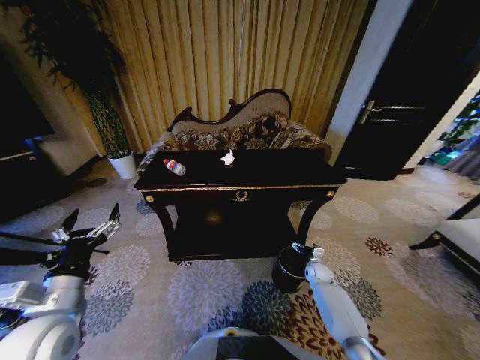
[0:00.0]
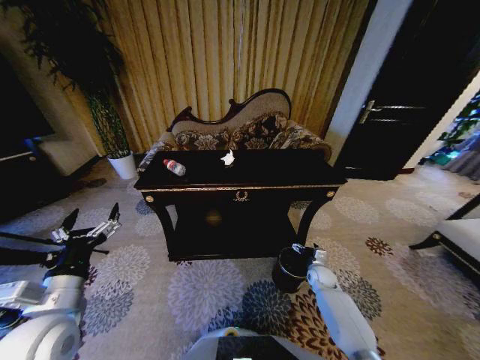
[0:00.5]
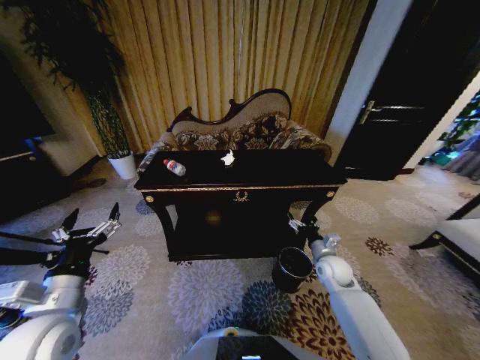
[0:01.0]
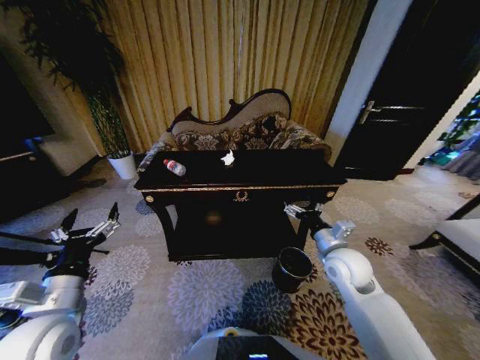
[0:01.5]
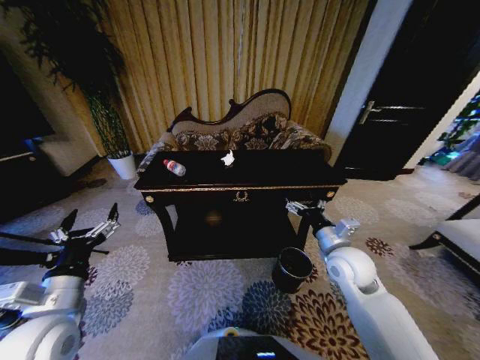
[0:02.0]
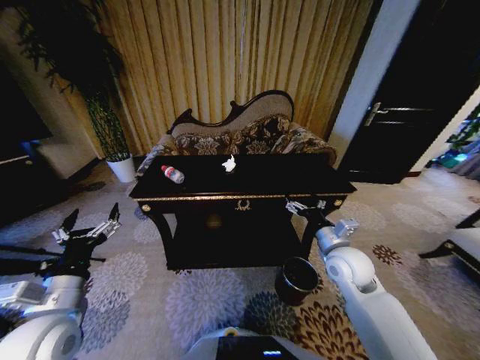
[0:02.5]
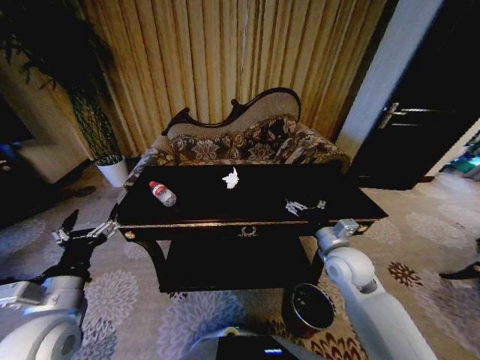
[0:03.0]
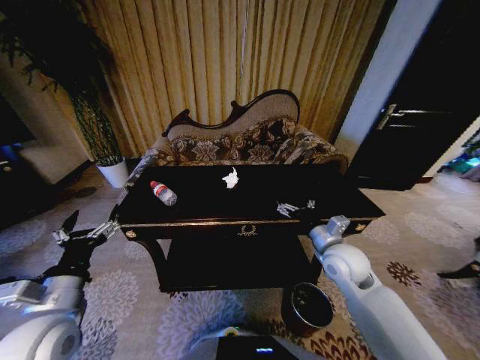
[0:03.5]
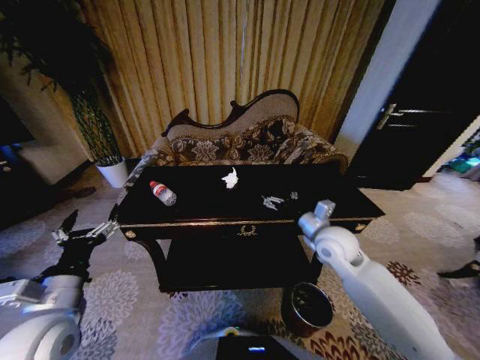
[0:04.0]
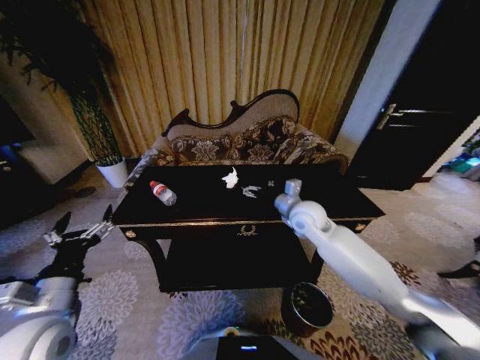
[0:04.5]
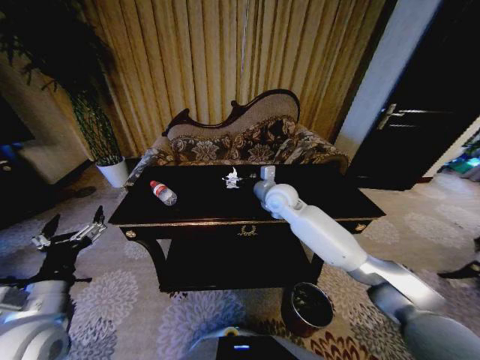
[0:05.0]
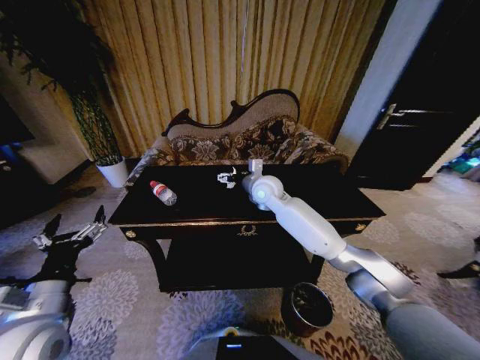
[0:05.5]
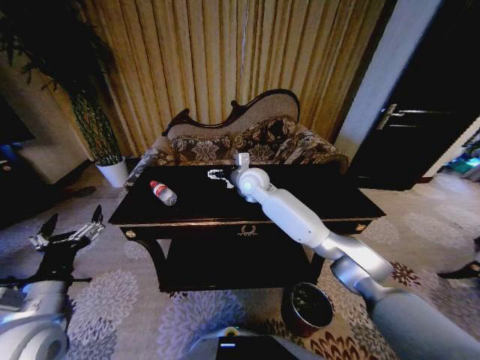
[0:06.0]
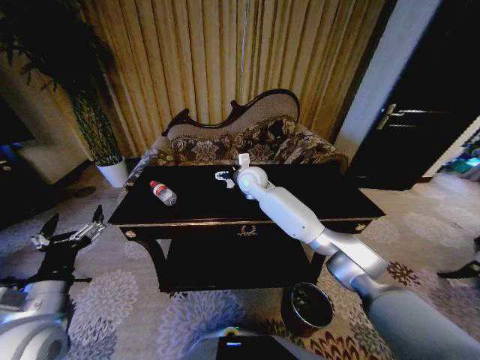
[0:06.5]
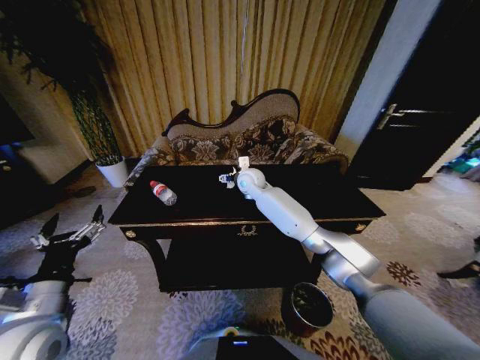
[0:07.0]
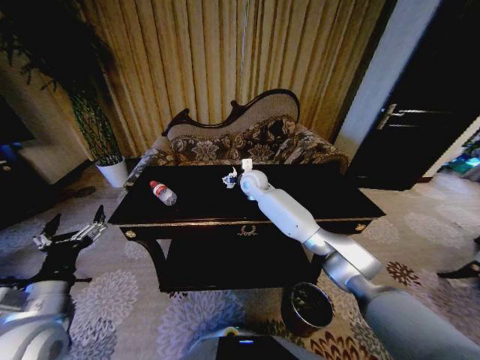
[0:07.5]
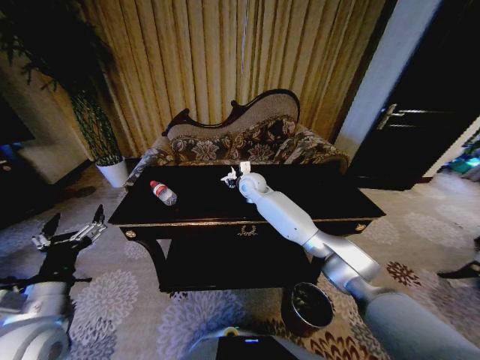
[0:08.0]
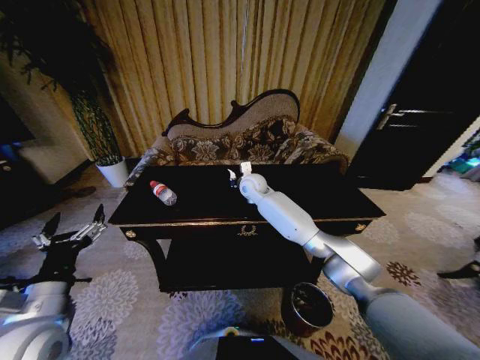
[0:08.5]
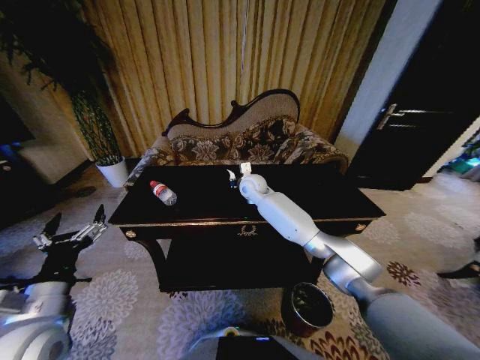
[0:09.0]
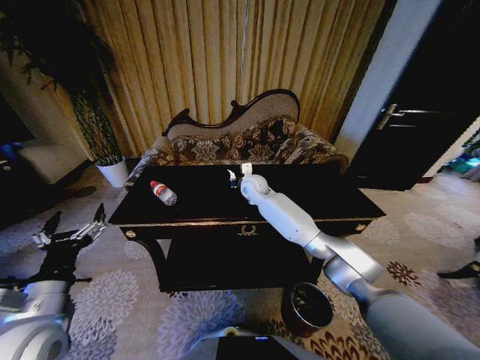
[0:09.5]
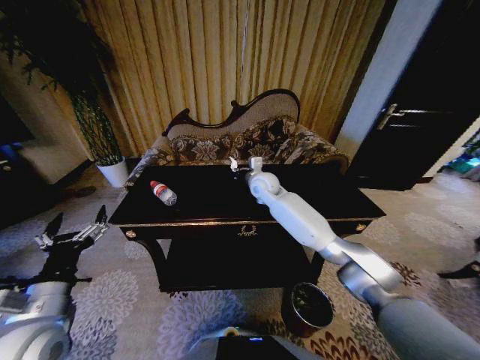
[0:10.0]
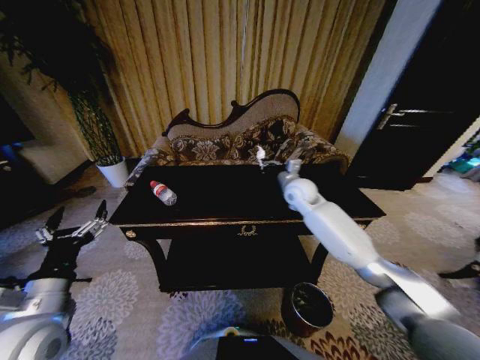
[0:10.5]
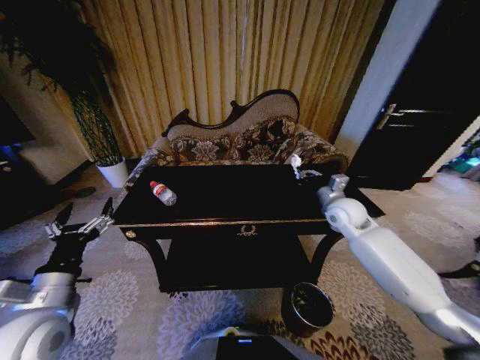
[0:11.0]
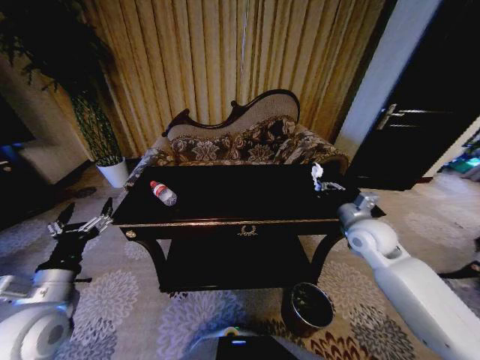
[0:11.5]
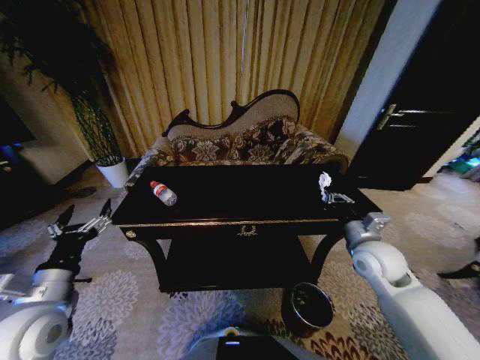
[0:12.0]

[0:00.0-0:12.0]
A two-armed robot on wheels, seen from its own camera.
Task of the whole recording: Move to the front of the table and place the trash on the table into the trash bin.
0:00.0 to 0:02.0: The right gripper heads upward, covering approximately 30 cm.
0:02.0 to 0:04.0: The right gripper travels forward by about 5 cm.
0:04.0 to 0:06.0: The right gripper shifts some 25 cm to the left and forward.
0:06.0 to 0:08.0: The right gripper heads downward, covering about 5 cm, and closes up.
0:08.0 to 0:10.0: The right gripper closes its fingers.
0:10.0 to 0:12.0: The right gripper heads backward and to the right, covering approximately 35 cm.

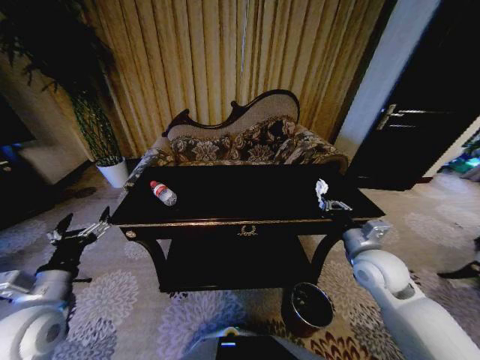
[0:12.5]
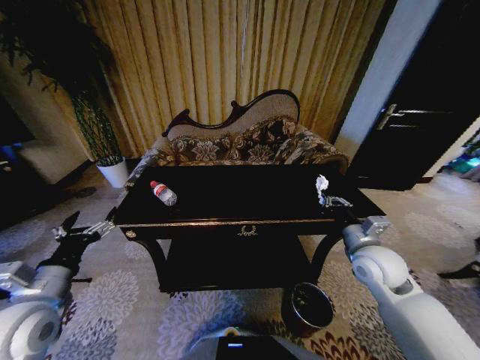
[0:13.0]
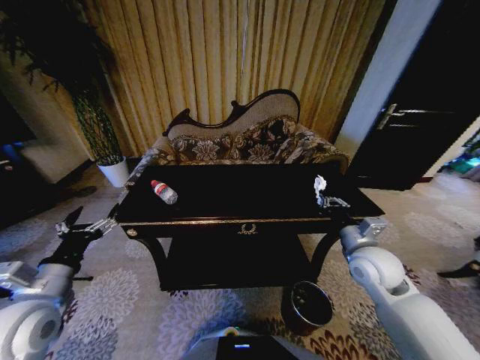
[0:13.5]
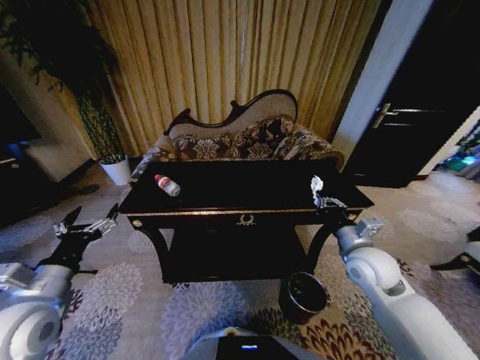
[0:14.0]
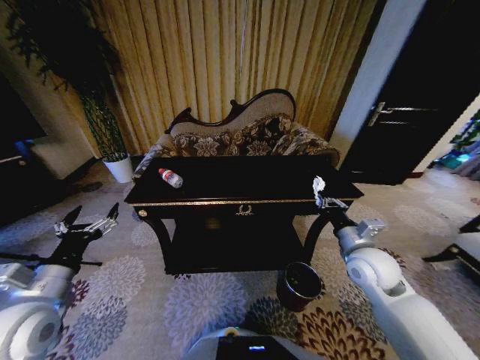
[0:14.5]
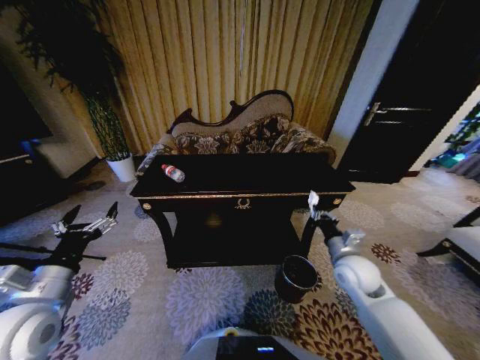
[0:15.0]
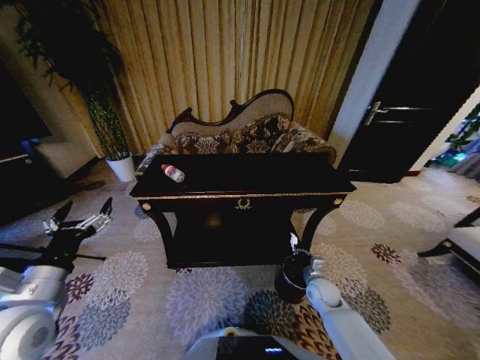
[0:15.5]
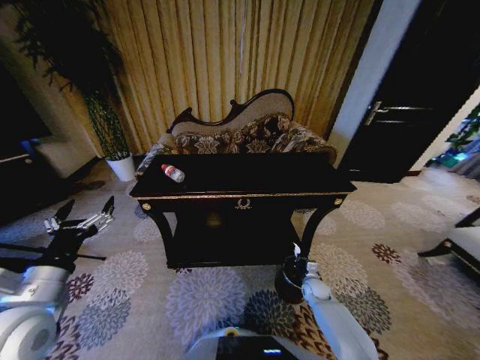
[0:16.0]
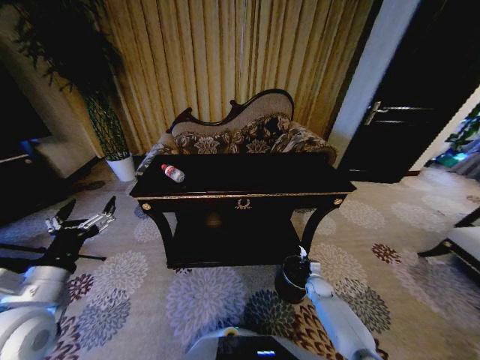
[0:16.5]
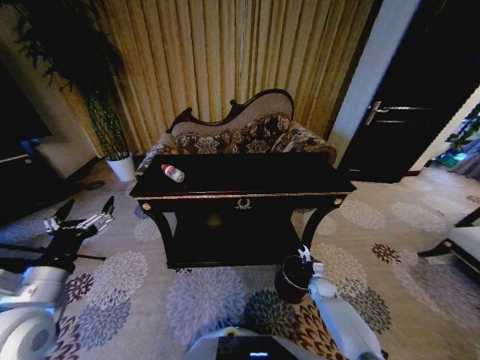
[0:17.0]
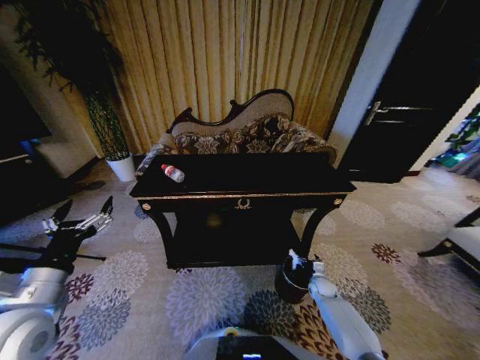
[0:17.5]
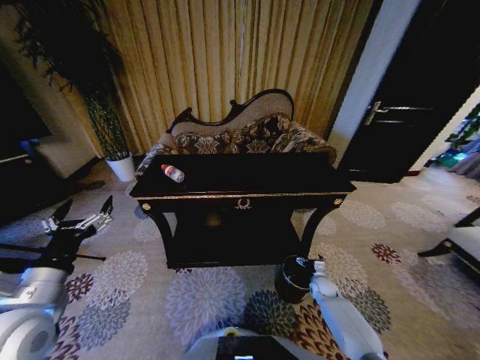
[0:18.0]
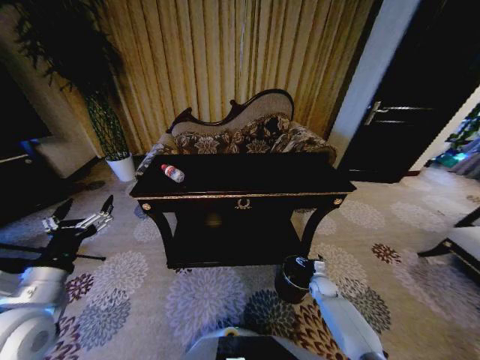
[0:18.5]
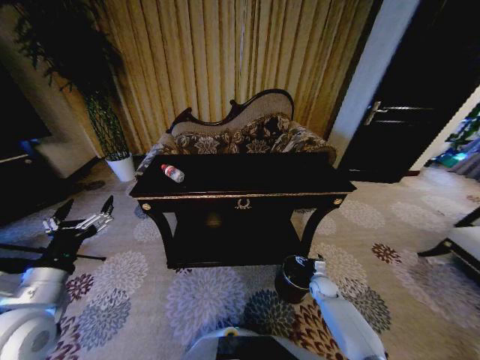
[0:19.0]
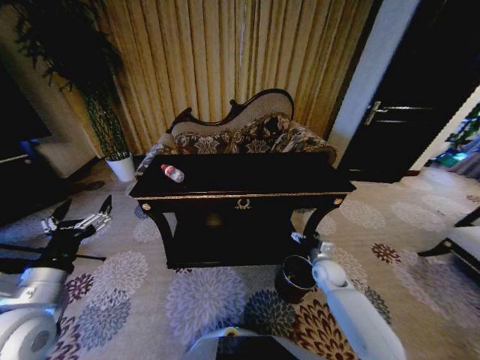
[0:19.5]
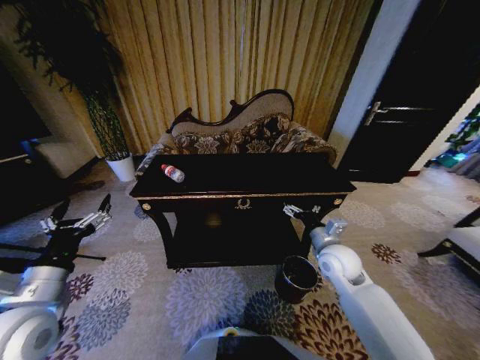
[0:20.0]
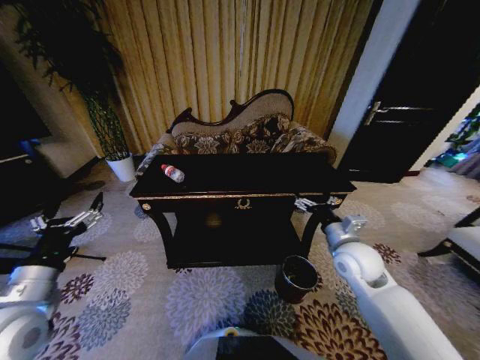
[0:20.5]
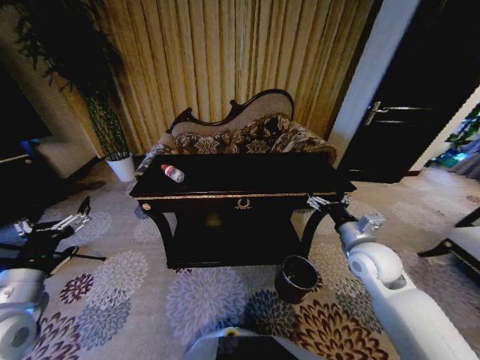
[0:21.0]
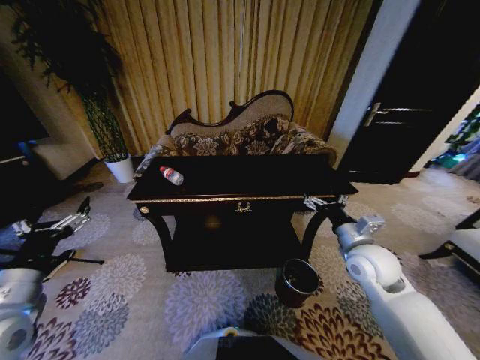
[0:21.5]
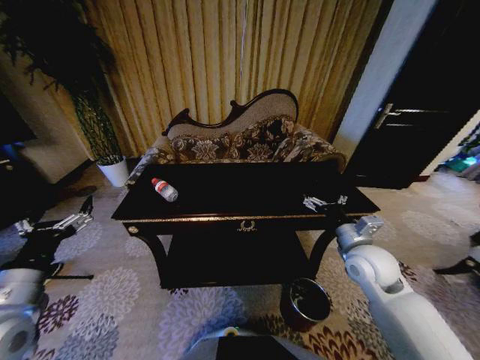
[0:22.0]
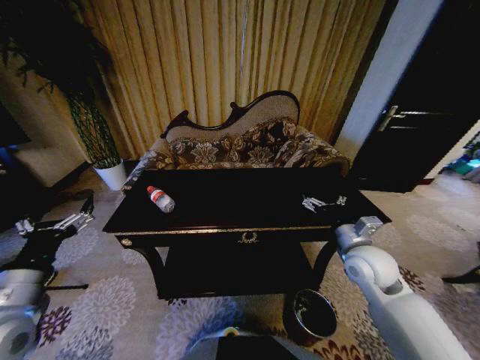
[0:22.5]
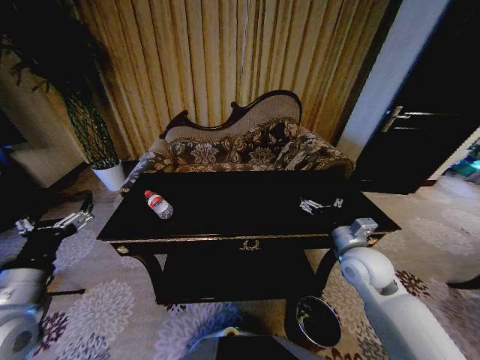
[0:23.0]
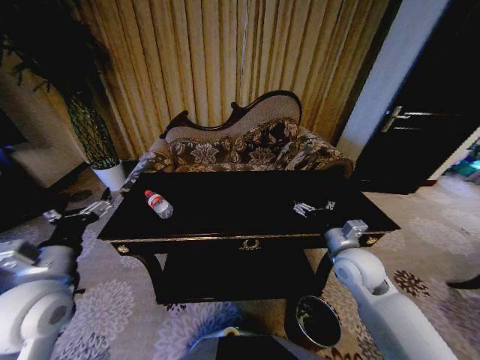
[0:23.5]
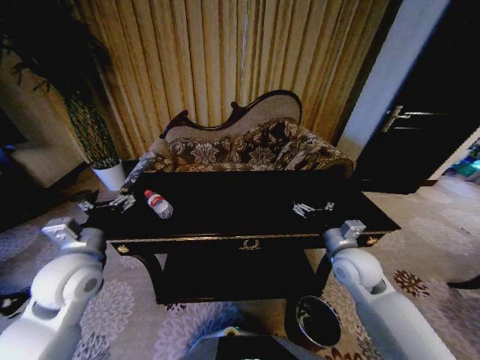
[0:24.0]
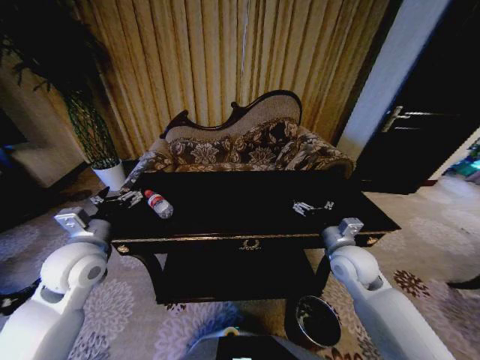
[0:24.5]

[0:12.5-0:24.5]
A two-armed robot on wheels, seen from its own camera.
Task of the whole recording: Move to the front of the table and place the trash on the table into the trash bin.
0:14.5 to 0:16.5: The right gripper travels downward by approximately 35 cm.
0:16.5 to 0:18.5: The right gripper opens its fingers.
0:18.5 to 0:20.5: The right gripper is displaced upward by roughly 35 cm.
0:22.5 to 0:24.5: The left gripper travels forward and to the right by roughly 15 cm.

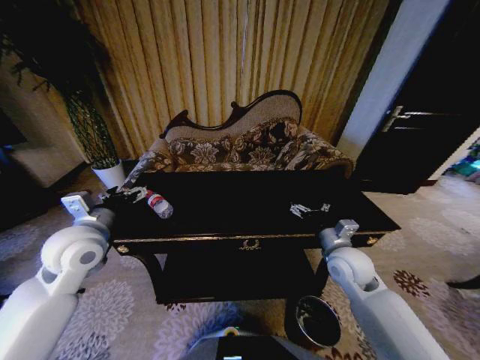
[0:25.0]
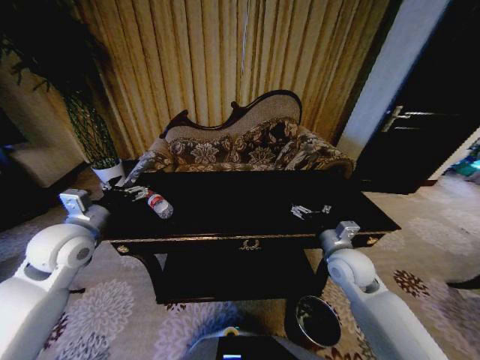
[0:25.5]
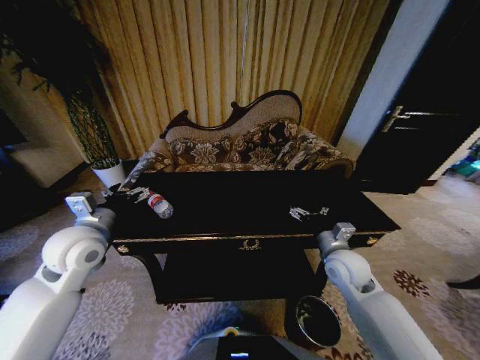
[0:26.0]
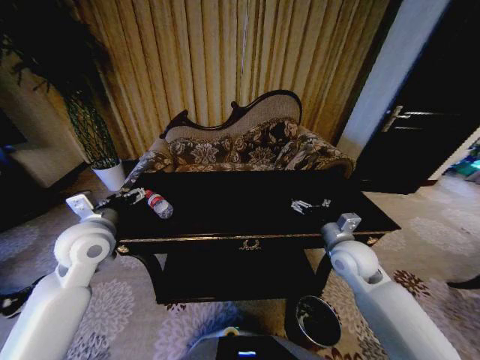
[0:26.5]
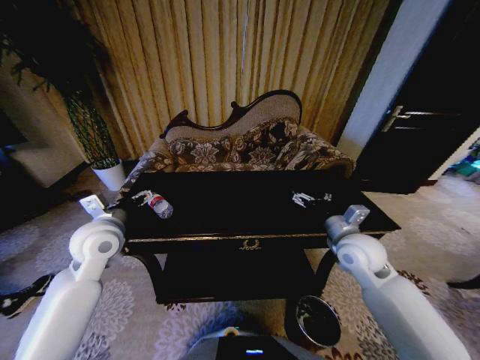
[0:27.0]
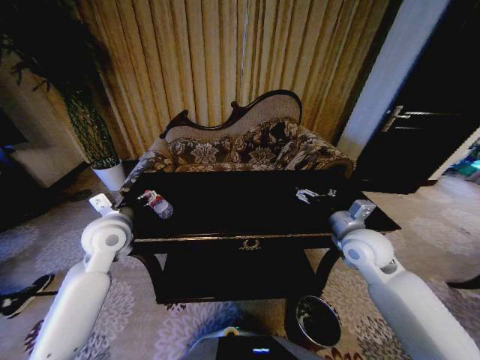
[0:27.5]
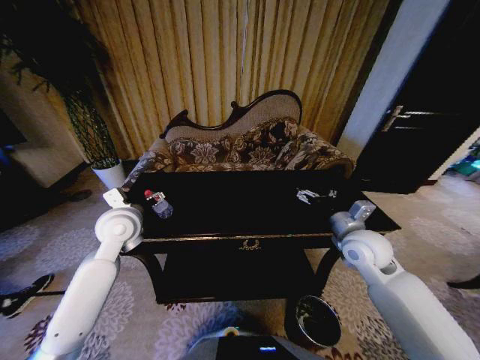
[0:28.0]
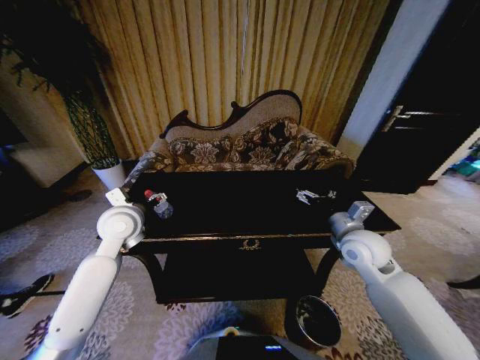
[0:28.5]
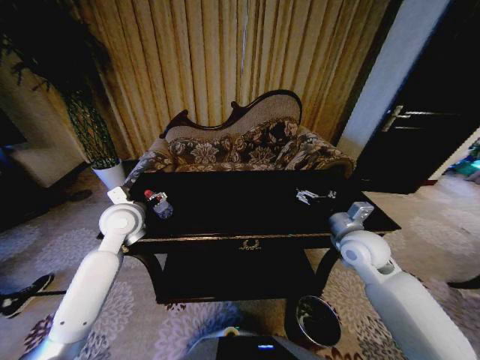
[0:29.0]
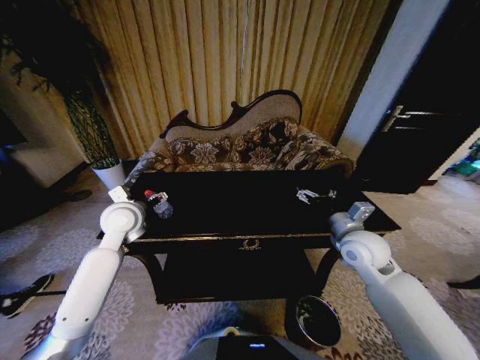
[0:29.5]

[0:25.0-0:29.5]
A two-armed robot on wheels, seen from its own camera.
Task of the whole recording: Move to the front of the table and place the trash on the table into the trash bin.
0:25.0 to 0:27.0: There are only small adjustments of the grippers.
0:27.0 to 0:29.5: The left gripper heads forward, covering roughly 5 cm.
